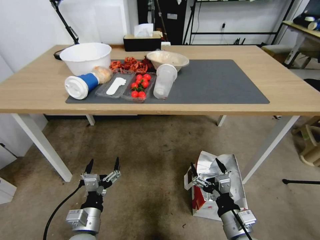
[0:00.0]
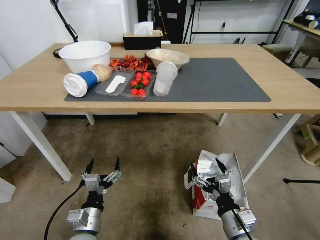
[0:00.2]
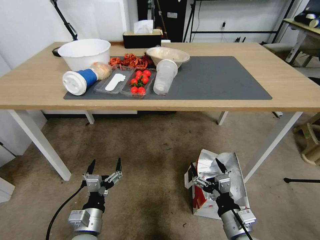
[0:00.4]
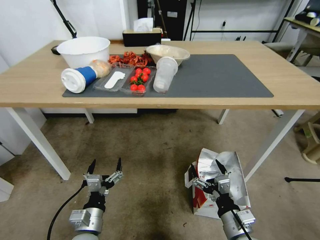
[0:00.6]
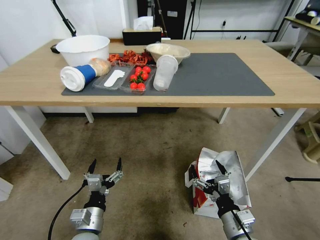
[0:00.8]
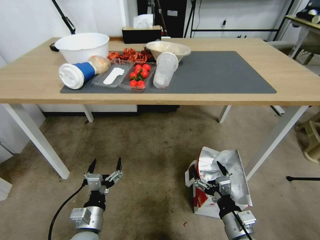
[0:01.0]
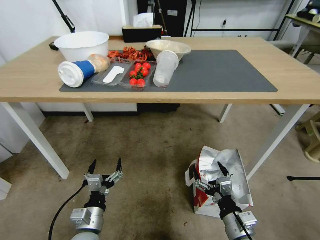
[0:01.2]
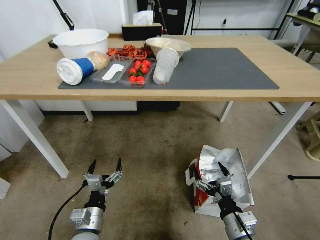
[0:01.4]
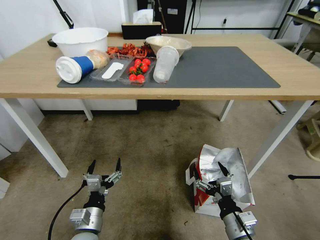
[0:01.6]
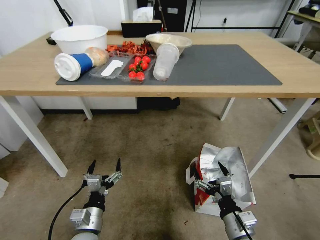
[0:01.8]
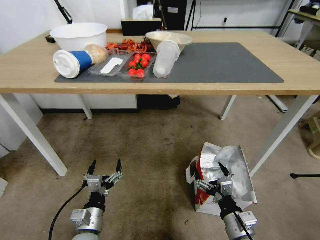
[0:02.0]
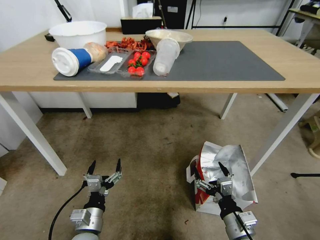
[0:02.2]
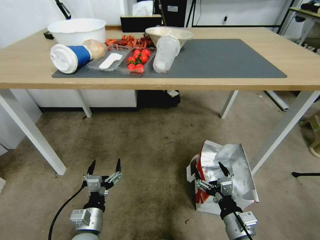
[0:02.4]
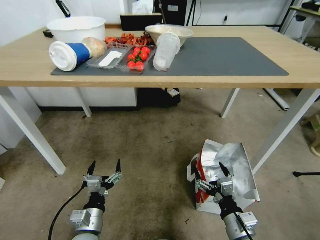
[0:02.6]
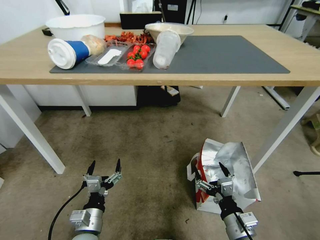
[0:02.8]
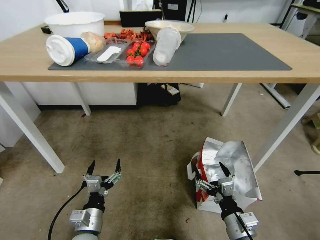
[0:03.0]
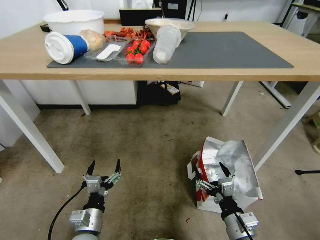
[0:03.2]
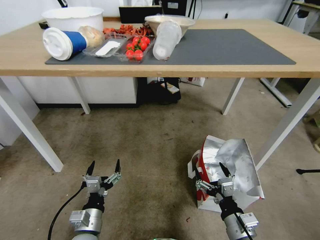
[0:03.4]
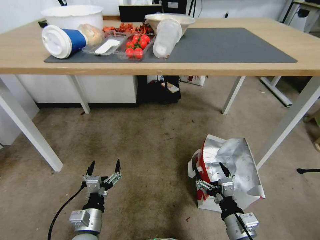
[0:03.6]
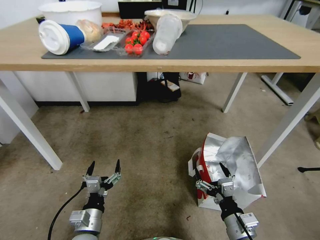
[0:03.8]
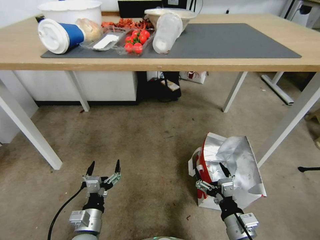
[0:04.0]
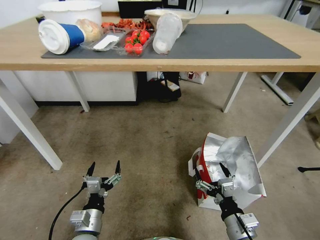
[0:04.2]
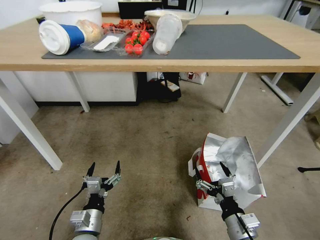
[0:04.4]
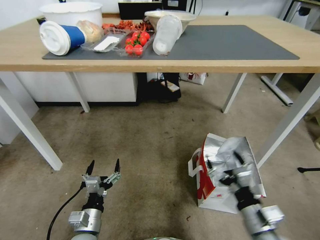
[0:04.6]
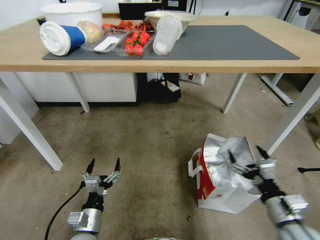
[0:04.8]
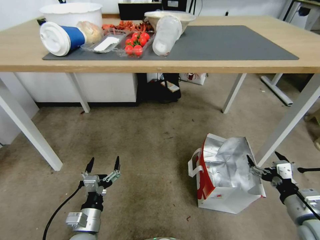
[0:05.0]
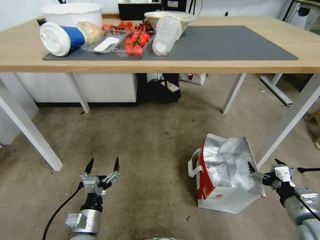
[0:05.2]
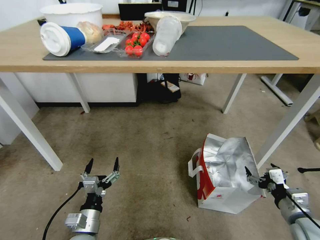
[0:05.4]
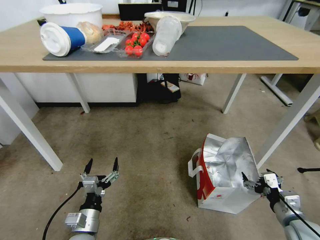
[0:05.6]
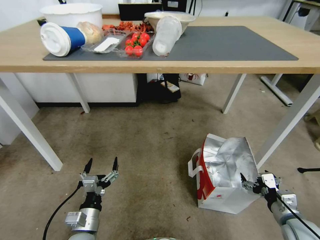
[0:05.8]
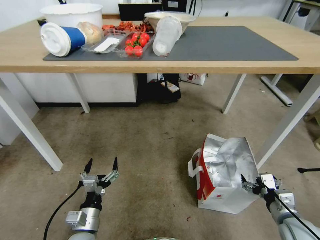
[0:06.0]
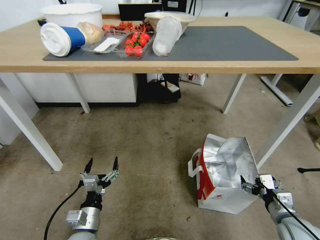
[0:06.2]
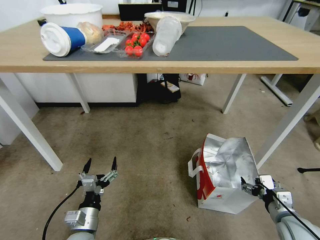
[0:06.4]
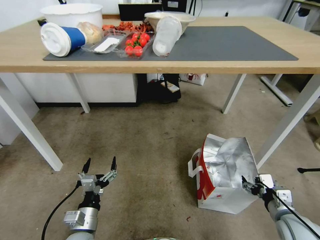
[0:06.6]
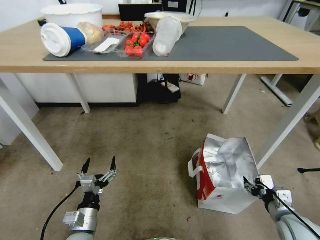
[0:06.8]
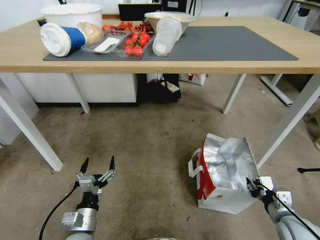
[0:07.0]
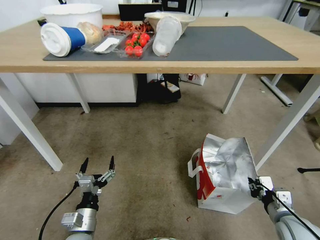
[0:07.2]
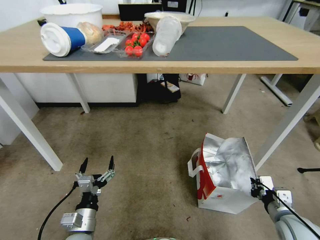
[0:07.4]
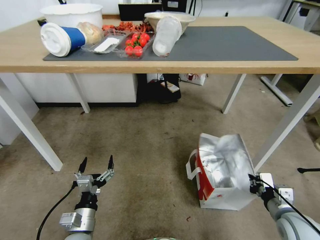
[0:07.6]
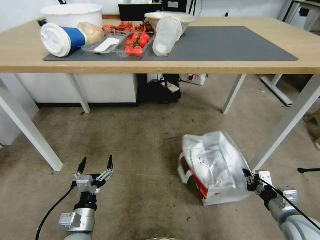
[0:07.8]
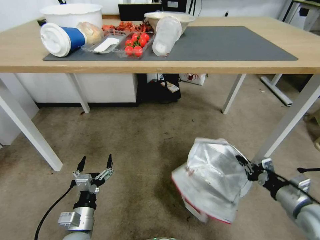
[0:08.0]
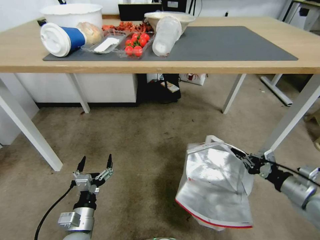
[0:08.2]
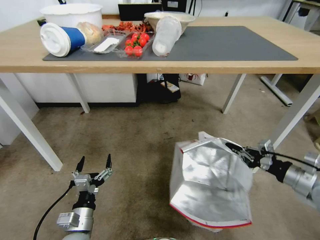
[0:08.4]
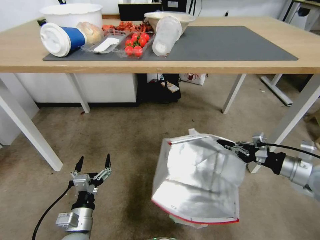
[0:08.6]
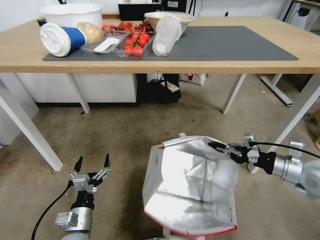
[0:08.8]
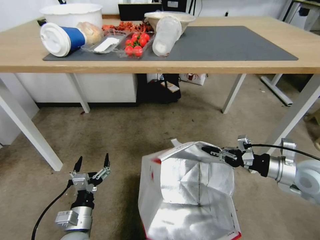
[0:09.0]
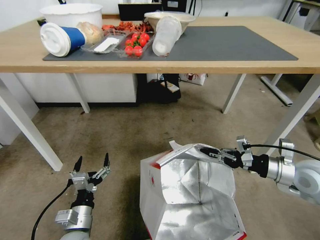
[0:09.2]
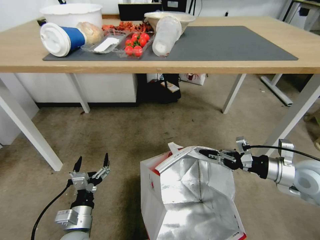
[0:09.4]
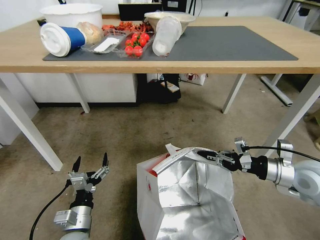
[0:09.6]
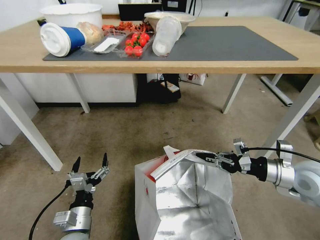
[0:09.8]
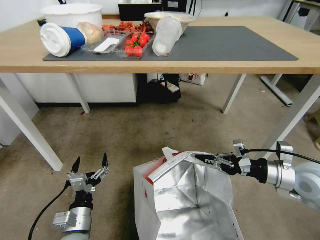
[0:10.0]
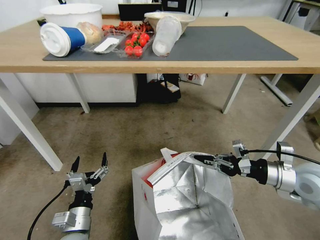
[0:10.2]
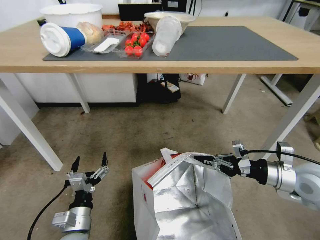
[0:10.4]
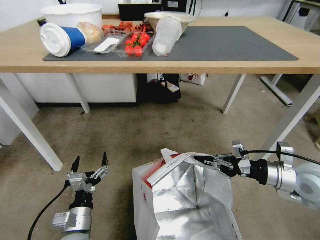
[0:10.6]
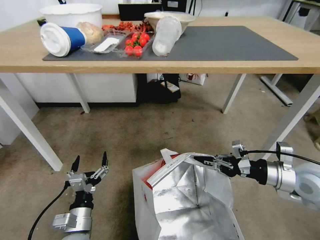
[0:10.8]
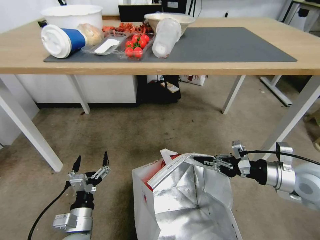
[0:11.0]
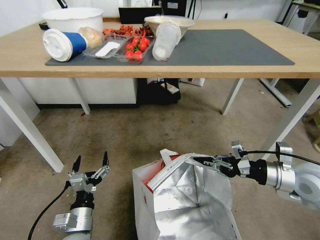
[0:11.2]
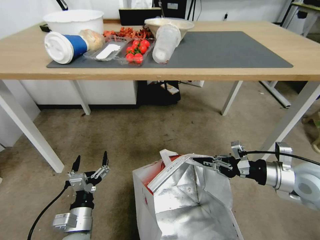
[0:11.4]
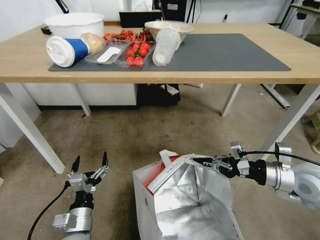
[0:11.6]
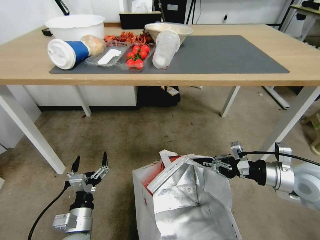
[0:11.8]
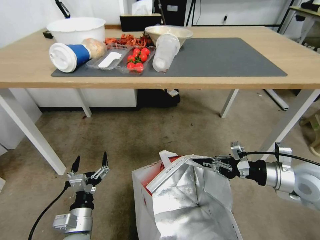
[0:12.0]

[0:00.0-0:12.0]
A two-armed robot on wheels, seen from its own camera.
Task of the whole recording: Pick up the food delivery bag from the floor and place it on the table.
0:04.4 to 0:06.0: The right gripper is displaced to the right by about 15 cm.
0:06.0 to 0:07.6: The right gripper closes up.
0:07.6 to 0:09.0: The right gripper moves upward and forward, about 15 cm.
0:09.0 to 0:10.4: The grippers move only a little.

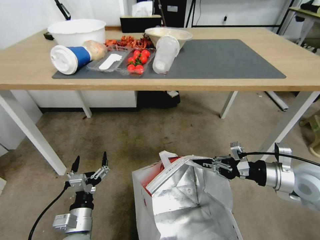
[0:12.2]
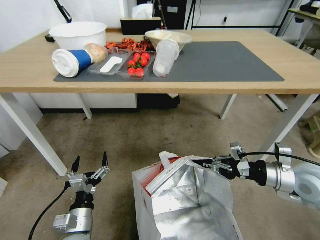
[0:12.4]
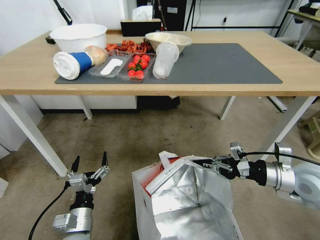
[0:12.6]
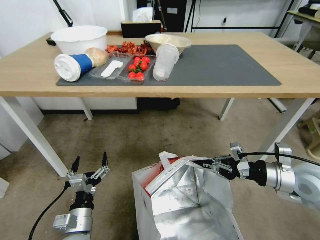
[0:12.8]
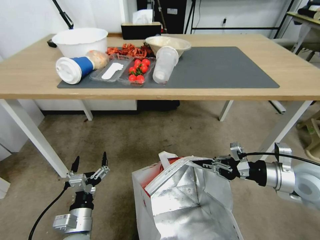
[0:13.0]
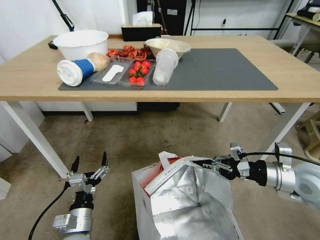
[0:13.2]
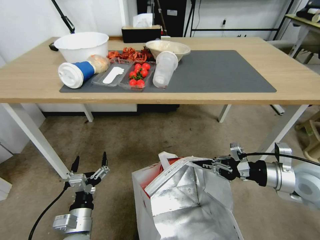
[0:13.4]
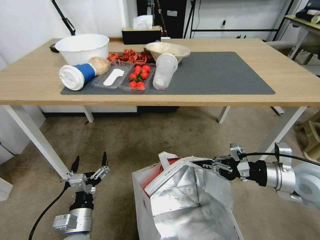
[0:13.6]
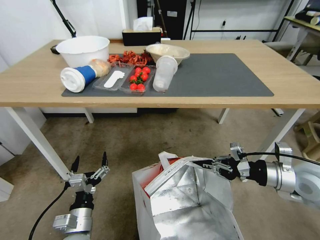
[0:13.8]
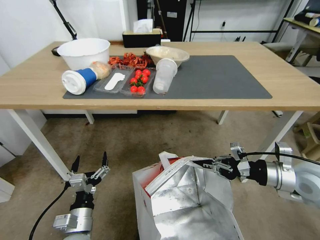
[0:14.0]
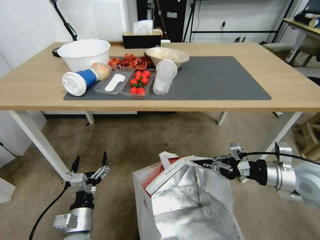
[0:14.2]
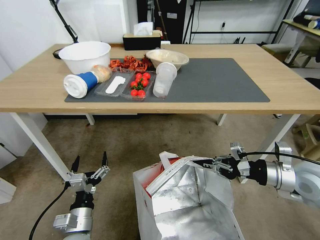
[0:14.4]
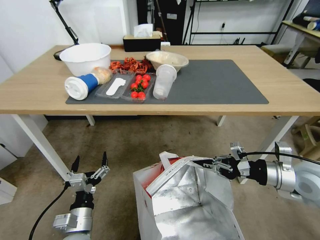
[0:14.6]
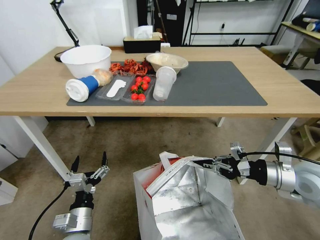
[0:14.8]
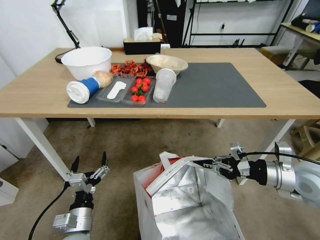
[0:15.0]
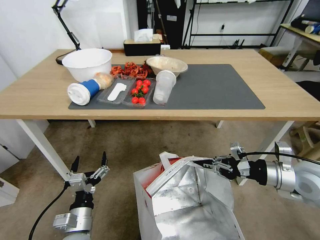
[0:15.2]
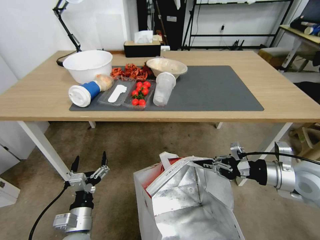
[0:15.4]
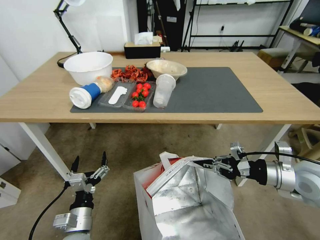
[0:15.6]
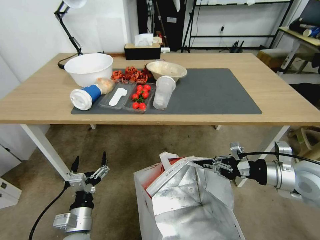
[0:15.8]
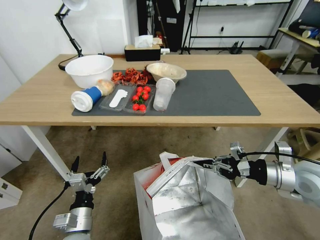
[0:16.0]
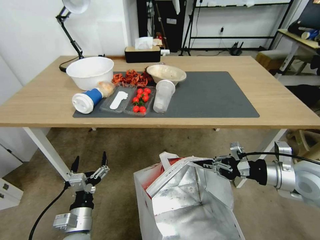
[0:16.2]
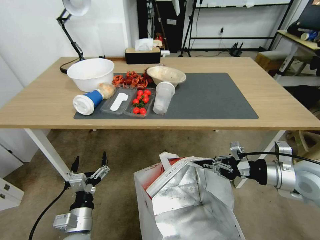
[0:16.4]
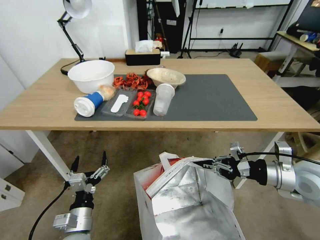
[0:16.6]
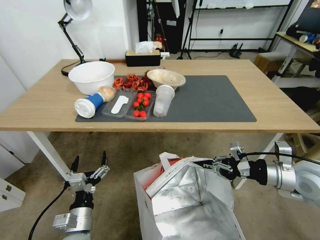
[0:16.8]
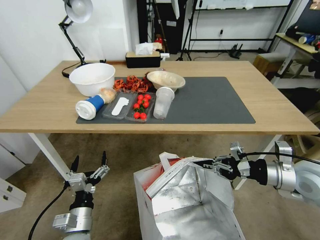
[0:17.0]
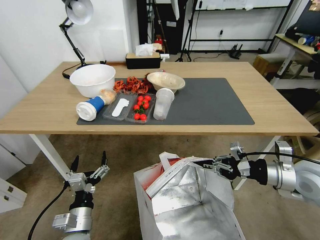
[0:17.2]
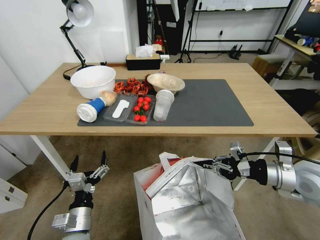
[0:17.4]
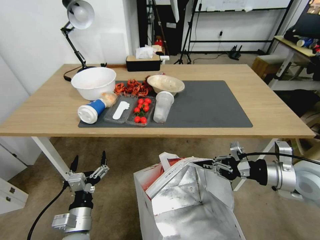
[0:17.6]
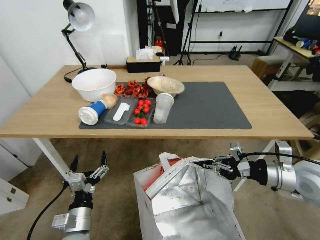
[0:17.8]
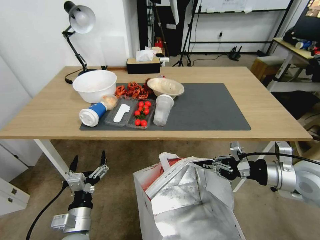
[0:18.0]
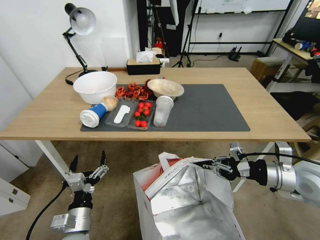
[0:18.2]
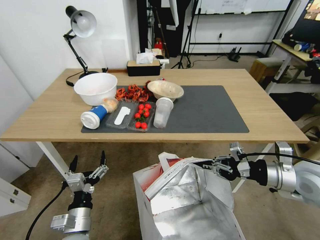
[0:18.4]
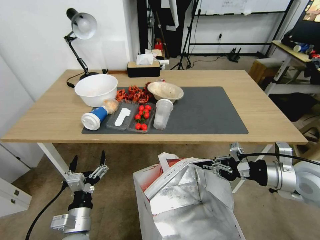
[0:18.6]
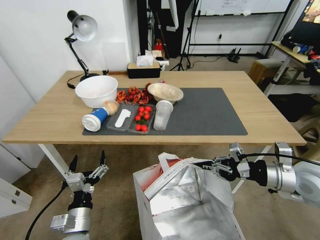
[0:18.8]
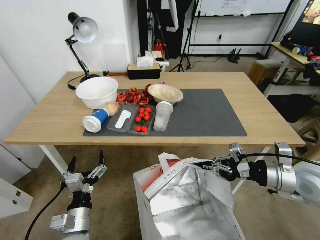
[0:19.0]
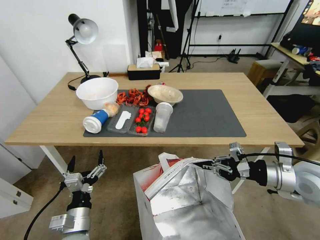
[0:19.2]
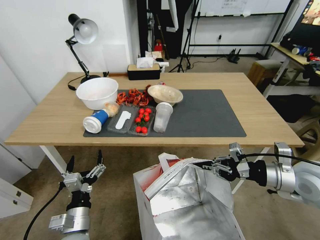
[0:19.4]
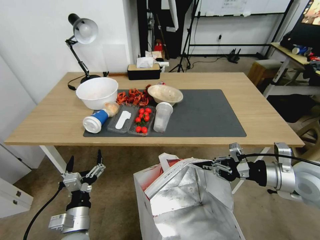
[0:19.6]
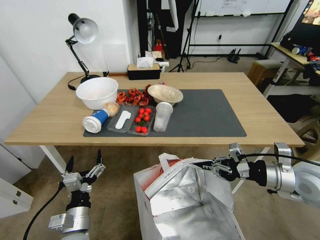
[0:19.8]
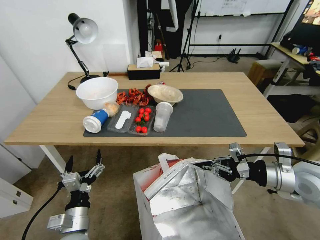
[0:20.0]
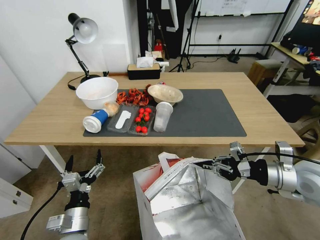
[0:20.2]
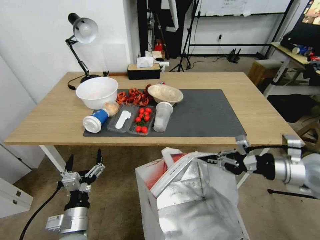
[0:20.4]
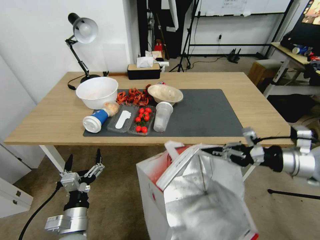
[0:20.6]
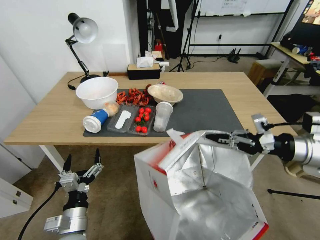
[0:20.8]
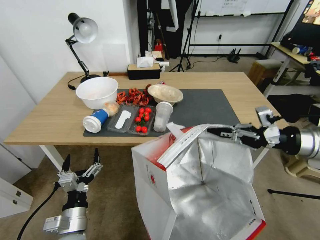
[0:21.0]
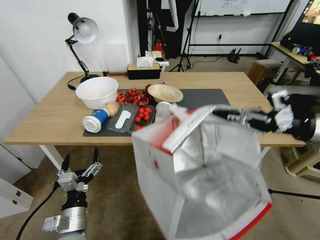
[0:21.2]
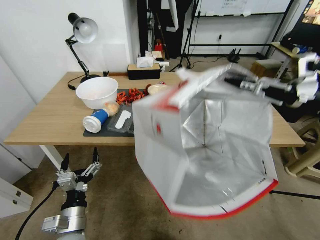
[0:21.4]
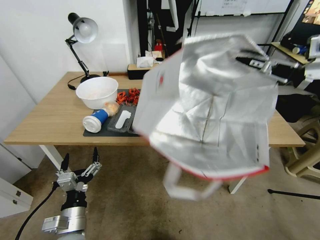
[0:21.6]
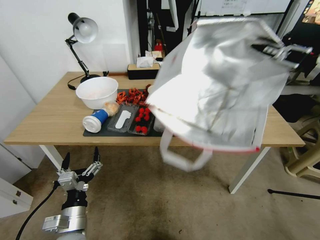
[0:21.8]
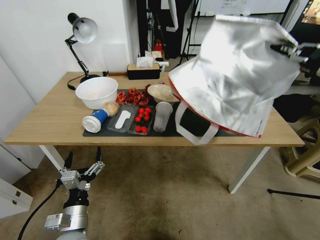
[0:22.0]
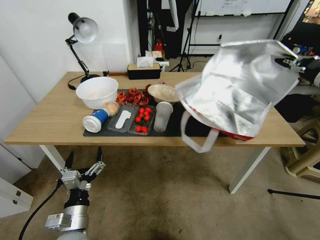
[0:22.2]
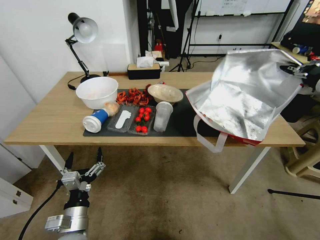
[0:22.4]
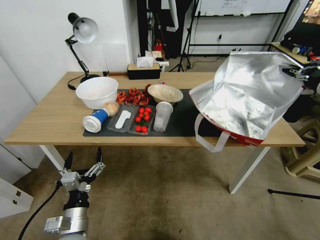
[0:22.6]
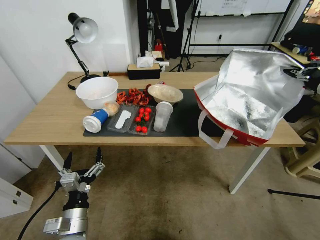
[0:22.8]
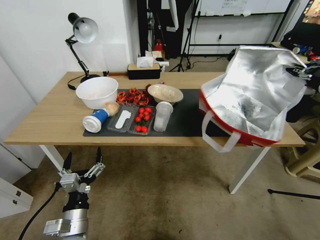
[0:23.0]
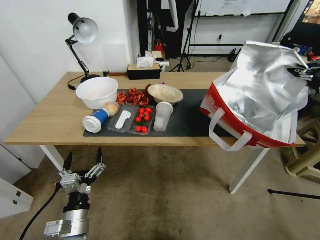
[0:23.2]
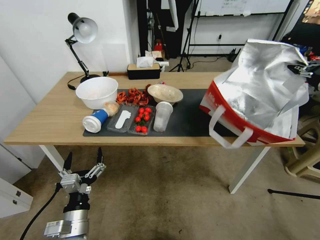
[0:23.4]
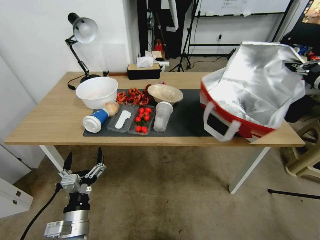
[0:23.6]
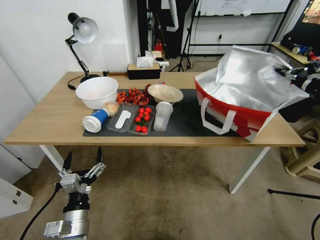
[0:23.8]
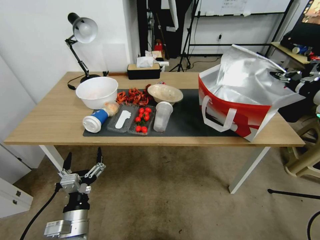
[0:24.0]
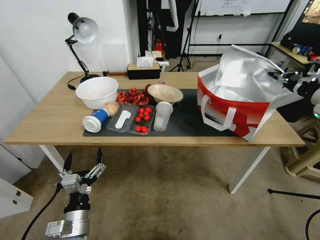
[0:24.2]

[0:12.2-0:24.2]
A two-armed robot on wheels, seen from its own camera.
Task of the whole recording: Pick up the food delivery bag from the floor and place it on the table.
0:19.8 to 0:21.2: The right gripper travels upward by roughly 15 cm.
0:21.2 to 0:22.6: The right gripper heads upward, covering some 5 cm.
0:22.6 to 0:24.2: The right gripper shifts approximately 10 cm forward and downward.
